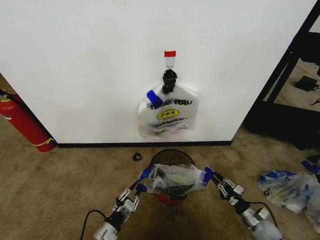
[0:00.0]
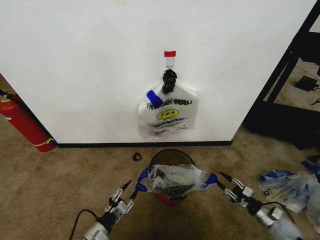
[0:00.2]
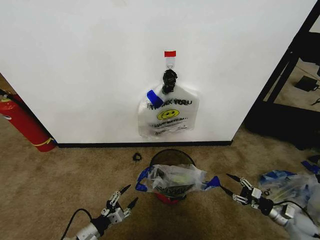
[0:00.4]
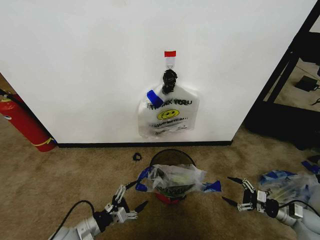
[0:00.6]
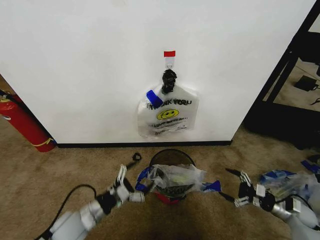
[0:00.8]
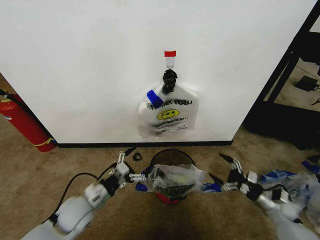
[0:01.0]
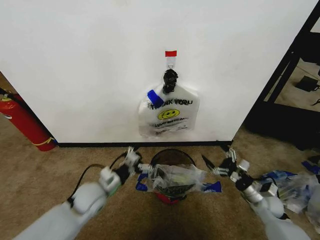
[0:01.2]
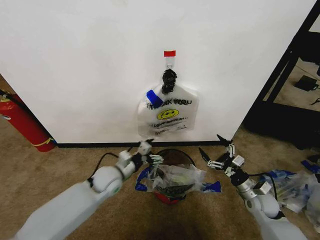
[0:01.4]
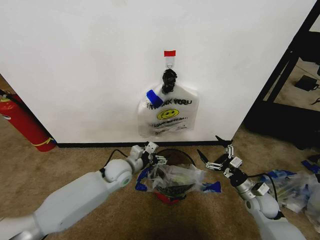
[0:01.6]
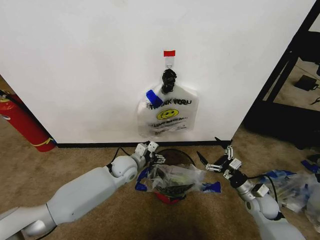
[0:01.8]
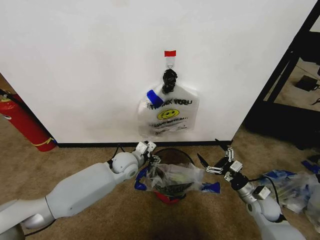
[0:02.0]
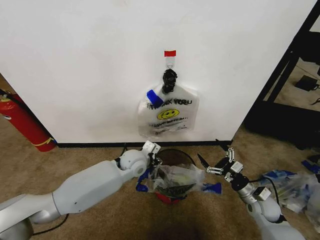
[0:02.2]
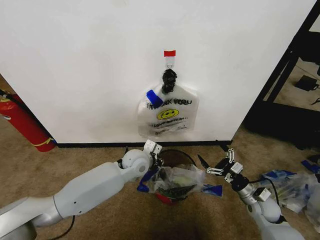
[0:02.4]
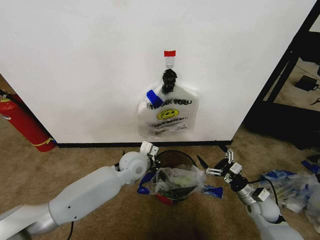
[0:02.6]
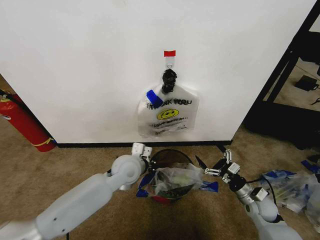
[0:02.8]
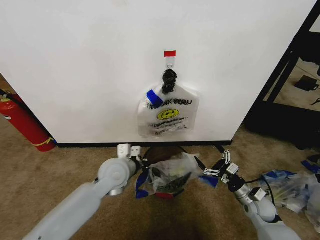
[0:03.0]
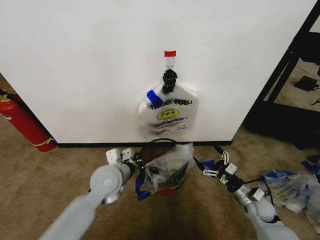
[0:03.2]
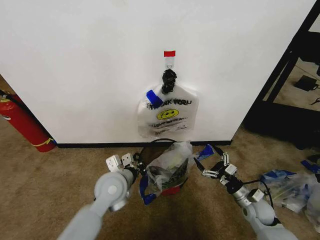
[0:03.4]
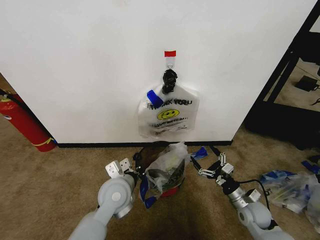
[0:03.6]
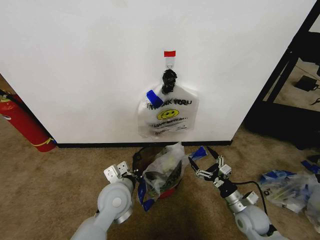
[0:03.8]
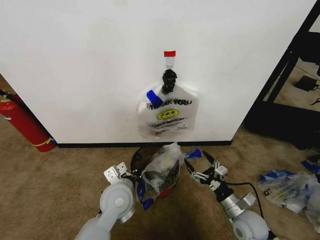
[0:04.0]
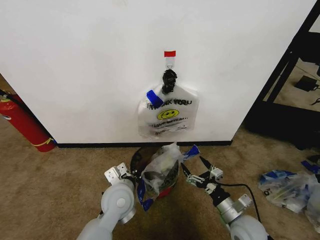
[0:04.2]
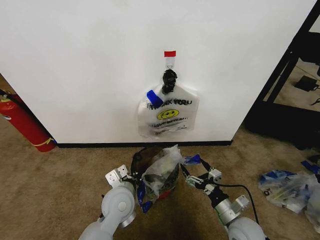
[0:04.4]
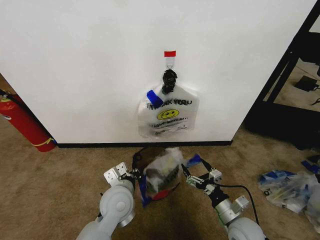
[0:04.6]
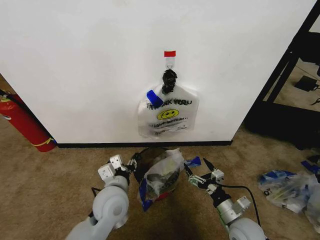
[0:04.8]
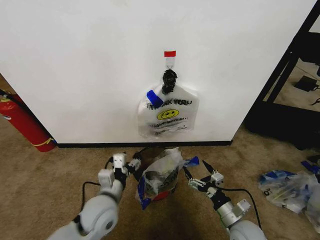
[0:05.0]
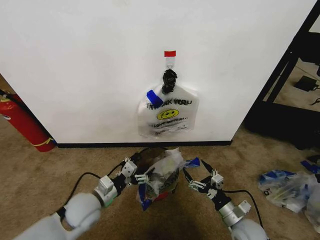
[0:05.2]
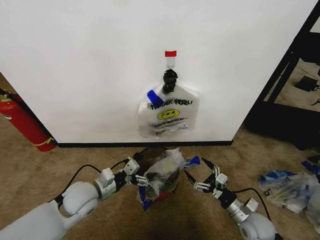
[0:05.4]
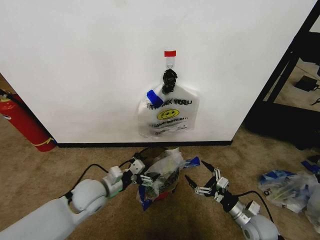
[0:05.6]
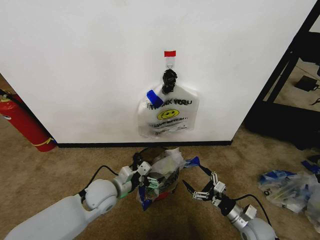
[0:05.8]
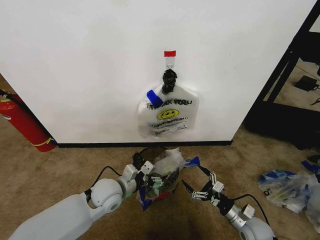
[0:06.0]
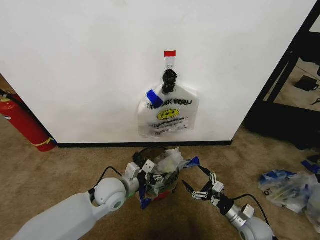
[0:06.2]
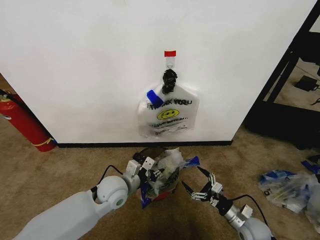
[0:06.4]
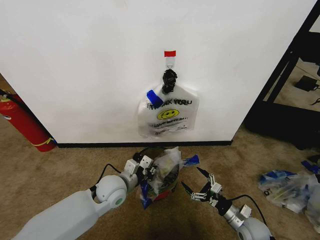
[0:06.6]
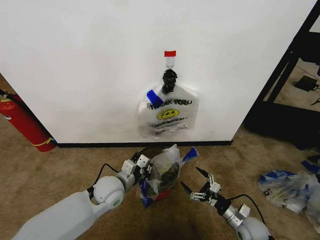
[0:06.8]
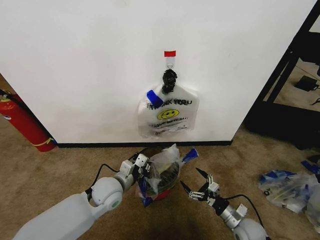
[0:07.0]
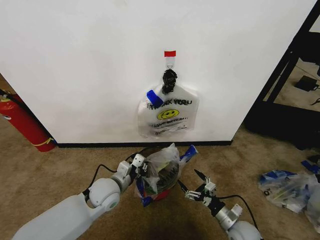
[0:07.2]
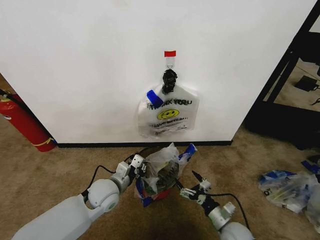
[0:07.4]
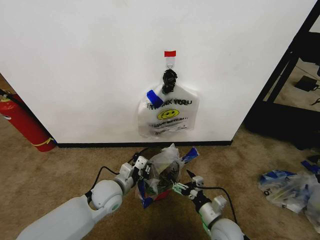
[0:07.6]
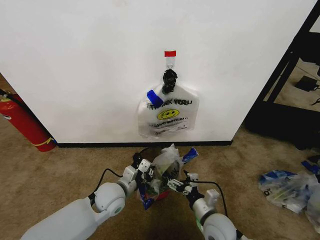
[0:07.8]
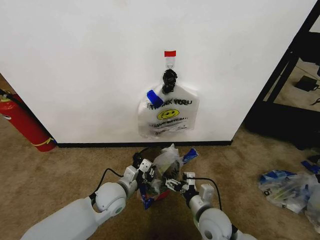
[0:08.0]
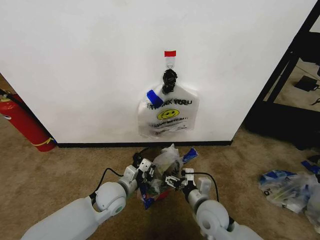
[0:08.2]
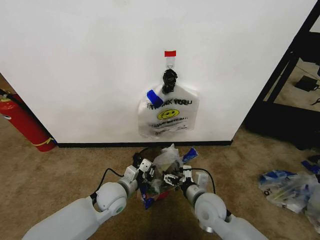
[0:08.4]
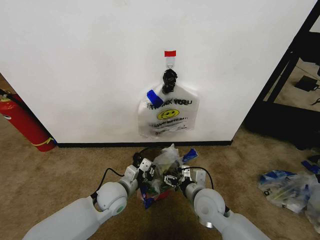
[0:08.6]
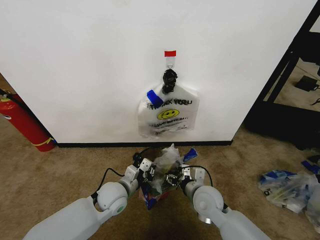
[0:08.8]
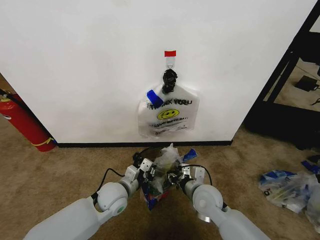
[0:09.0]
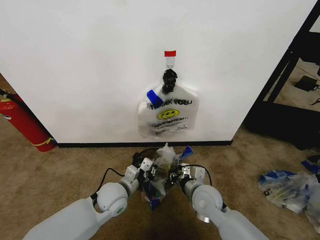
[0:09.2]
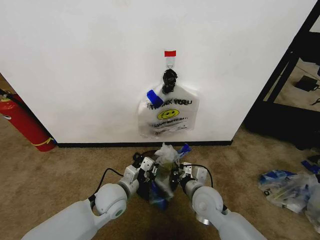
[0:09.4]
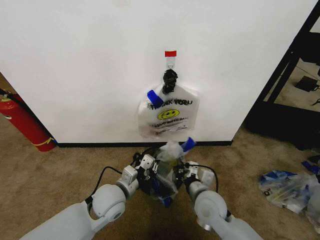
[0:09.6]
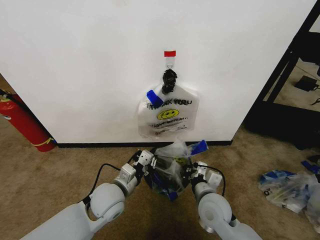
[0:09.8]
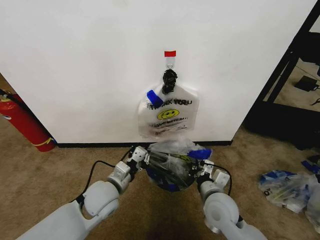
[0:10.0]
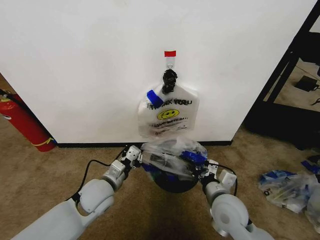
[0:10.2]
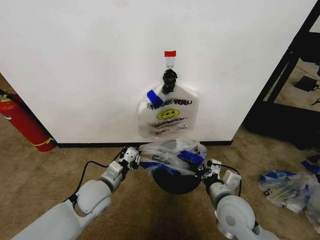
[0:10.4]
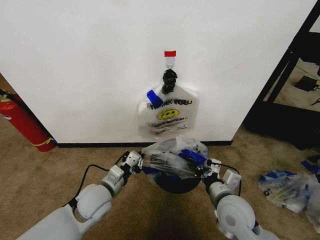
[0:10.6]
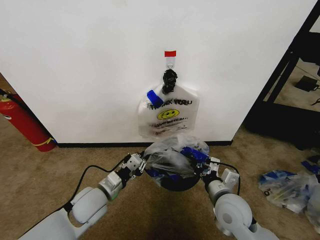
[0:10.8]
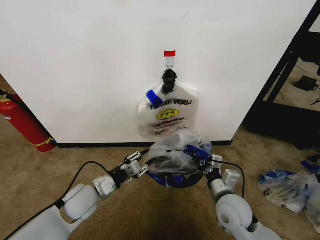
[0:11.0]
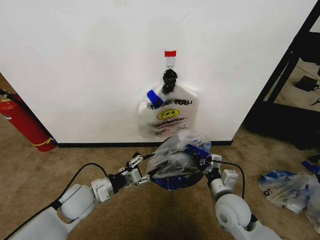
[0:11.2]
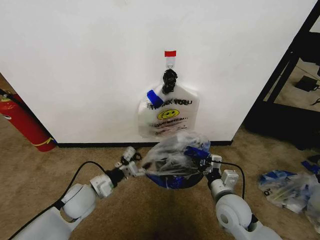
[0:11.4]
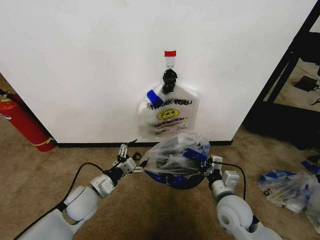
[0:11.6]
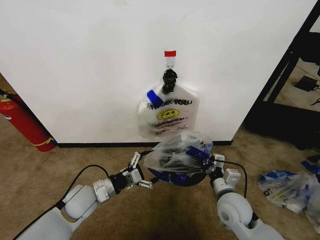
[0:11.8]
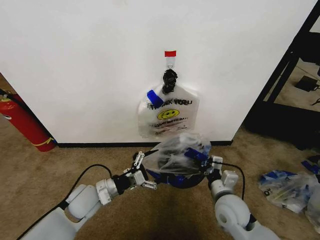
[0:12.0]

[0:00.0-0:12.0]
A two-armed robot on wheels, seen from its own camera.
Task of the whole recording: Pick up the garbage bag from the wall and place it over the trash bin.
0:00.0 to 0:01.6: The right gripper goes roughly 15 cm upward and to the left, and opens its fingers. Meanwhile the left gripper shifts some 25 cm forward and upward, and opens.
0:01.6 to 0:03.0: The left gripper goes about 10 cm upward, and closes up.
0:03.0 to 0:04.4: The left gripper moves backward, about 10 cm. Meanwhile the right gripper heads to the left and backward, covering some 15 cm.
0:04.4 to 0:06.0: The right gripper goes some 10 cm to the right and downward. The left gripper opens its fingers.
0:06.0 to 0:07.6: The left gripper closes. Meanwhile the right gripper goes about 10 cm to the left.
0:07.6 to 0:09.0: The right gripper travels forward, upward and to the left by about 15 cm, and closes up.
0:09.0 to 0:10.4: The right gripper moves backward and upward, approximately 10 cm, and closes its fingers. Meanwhile the left gripper ends up some 5 cm from where it was.
0:10.4 to 0:12.0: The right gripper shifts by approximately 5 cm. Meanwhile the left gripper opens its fingers.

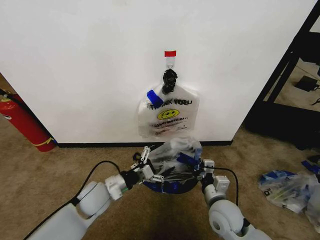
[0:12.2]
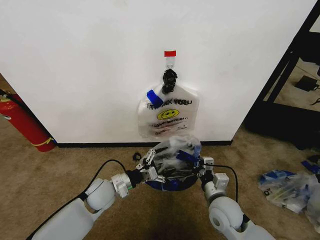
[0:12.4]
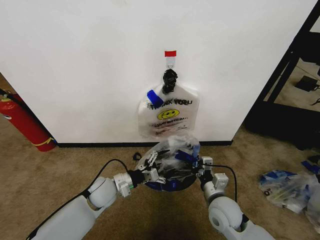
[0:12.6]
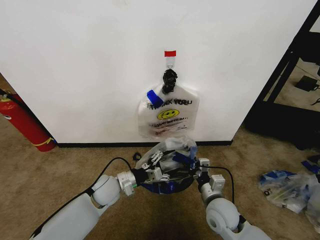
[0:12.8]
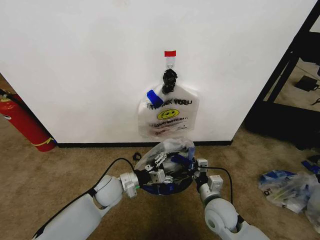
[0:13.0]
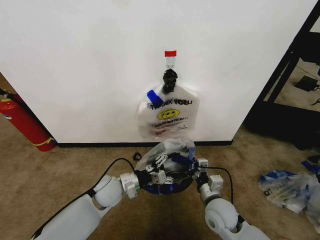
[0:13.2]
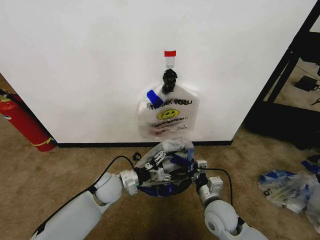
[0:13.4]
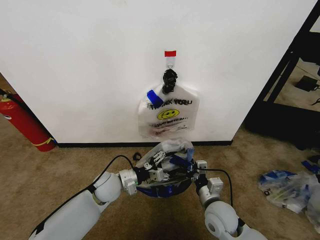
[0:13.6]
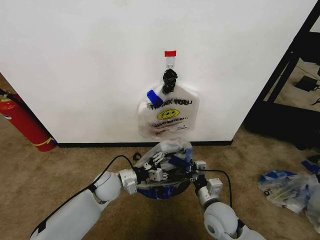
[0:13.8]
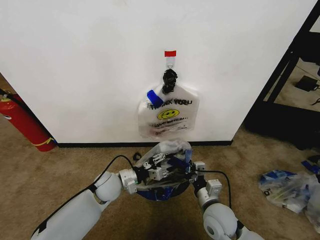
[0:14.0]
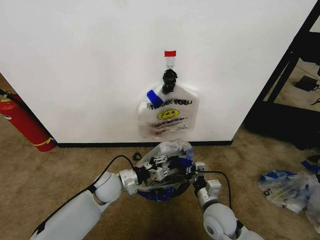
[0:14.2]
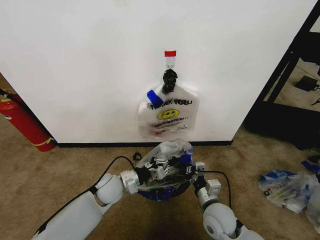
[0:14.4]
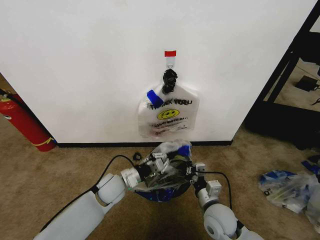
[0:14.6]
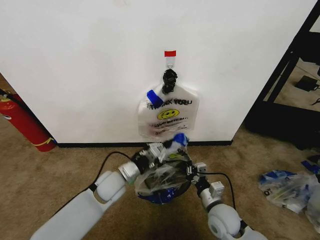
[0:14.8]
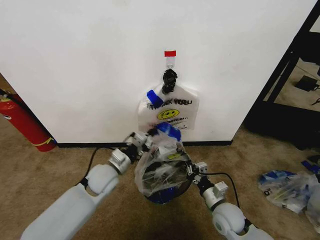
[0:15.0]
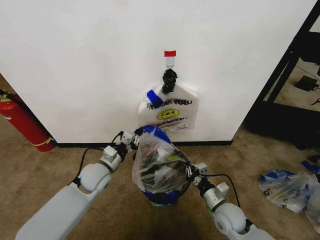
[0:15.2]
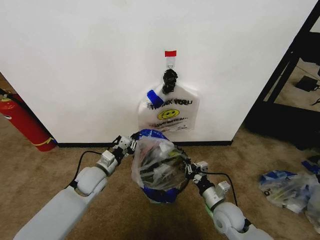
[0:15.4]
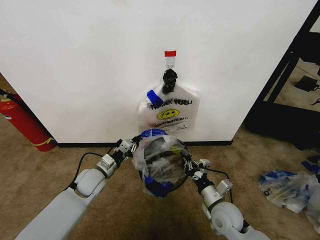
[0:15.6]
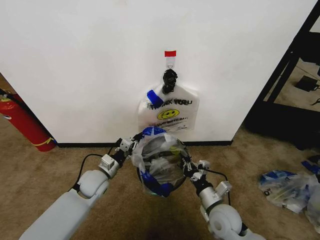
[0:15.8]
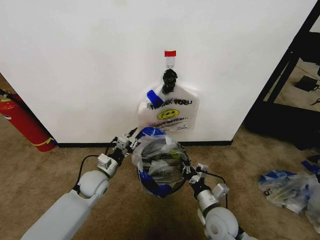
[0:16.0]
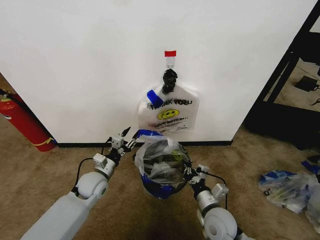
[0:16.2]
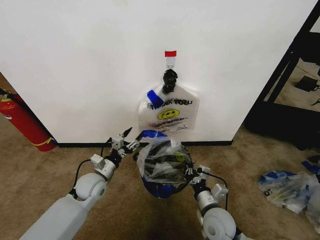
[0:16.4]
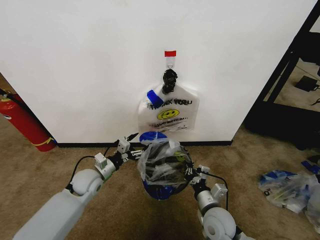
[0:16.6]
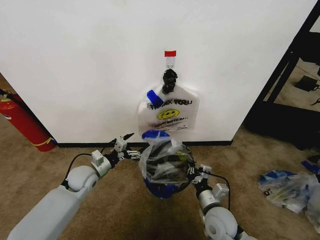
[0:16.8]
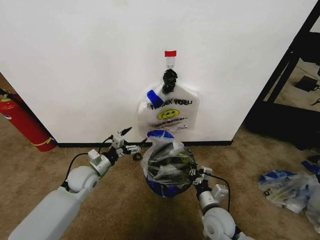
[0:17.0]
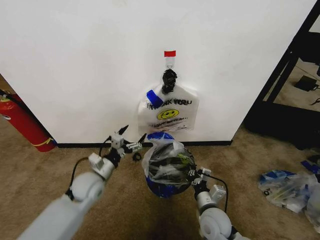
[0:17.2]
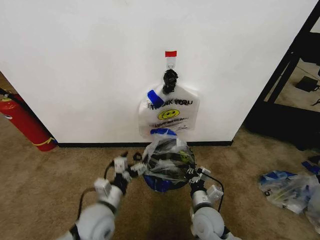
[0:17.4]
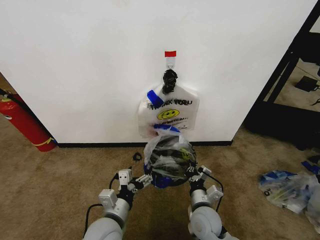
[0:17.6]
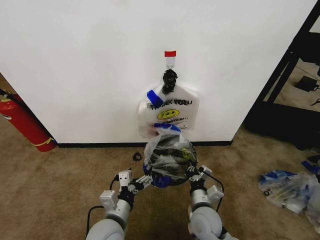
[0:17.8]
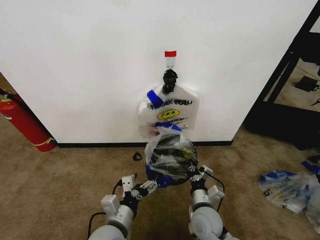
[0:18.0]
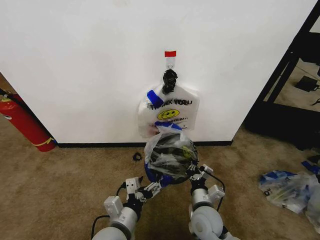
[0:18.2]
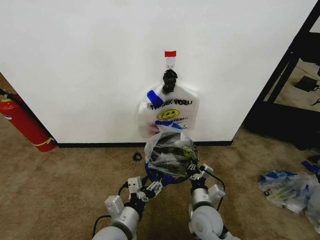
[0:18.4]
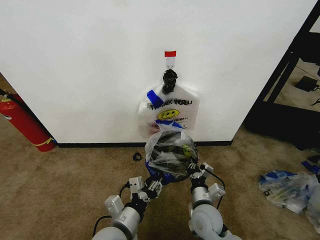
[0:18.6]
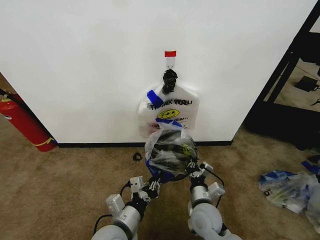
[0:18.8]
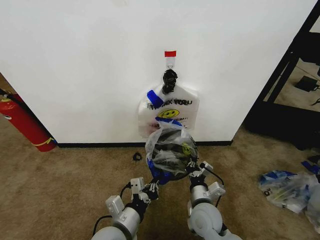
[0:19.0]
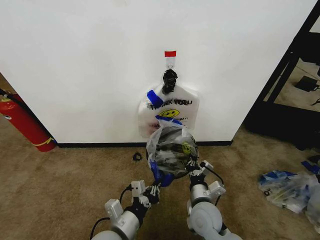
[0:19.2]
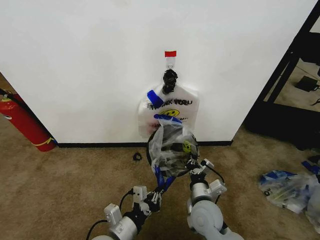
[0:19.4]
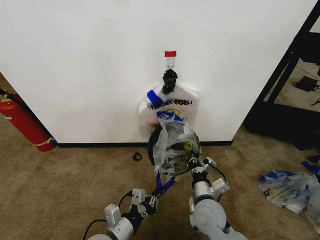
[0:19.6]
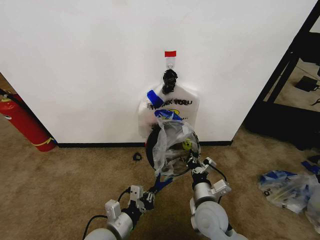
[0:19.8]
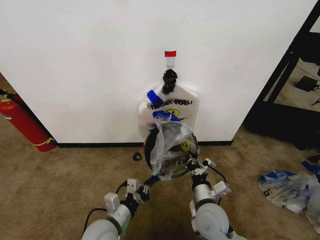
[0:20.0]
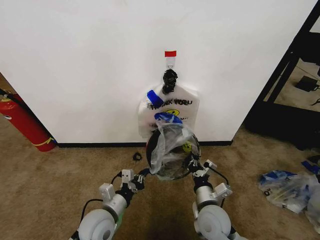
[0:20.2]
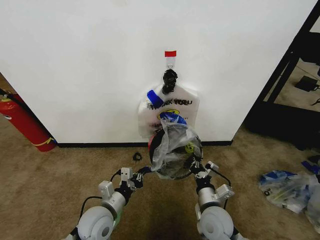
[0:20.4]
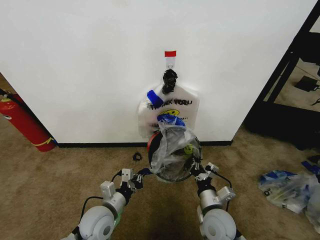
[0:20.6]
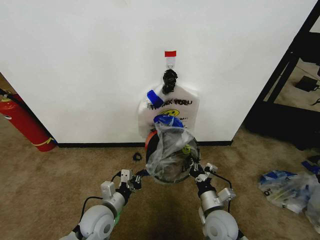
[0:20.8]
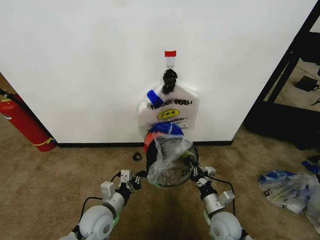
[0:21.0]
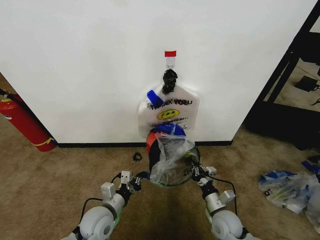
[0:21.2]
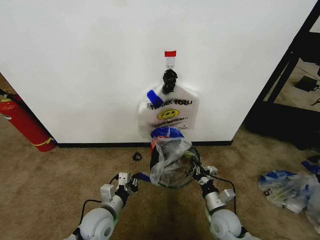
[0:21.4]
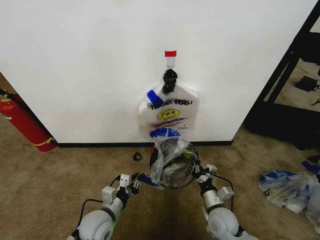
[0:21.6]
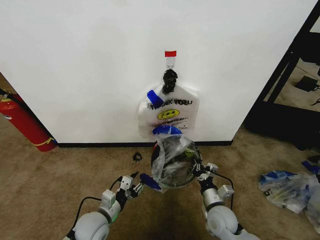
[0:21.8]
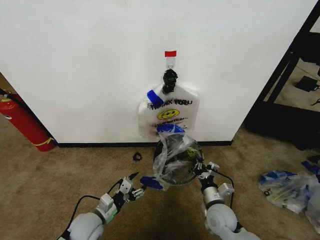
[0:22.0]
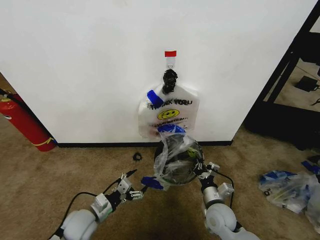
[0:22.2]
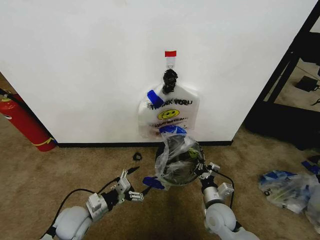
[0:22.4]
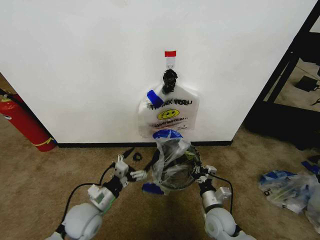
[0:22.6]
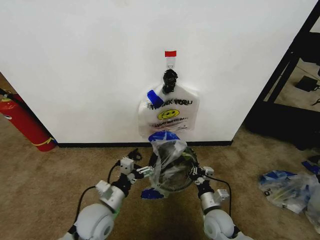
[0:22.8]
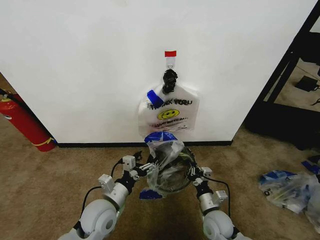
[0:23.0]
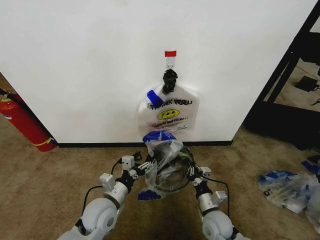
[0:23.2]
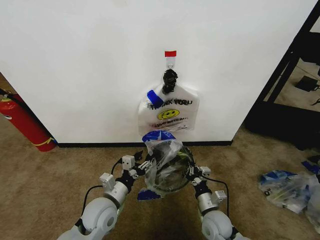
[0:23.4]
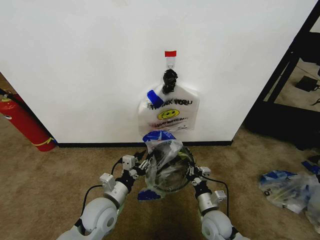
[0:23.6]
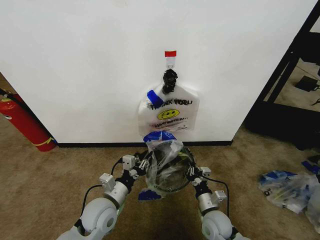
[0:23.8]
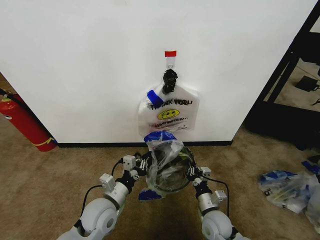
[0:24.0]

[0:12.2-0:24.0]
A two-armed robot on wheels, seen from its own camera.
Task of the whole recording: Pick up the garbage bag from the wall and place it over the trash bin.
0:12.2 to 0:13.6: The left gripper shifts by about 5 cm.
0:13.6 to 0:15.2: The left gripper changes place by about 5 cm, and closes up. Meanwhile the right gripper changes place by approximately 5 cm.
0:15.2 to 0:16.6: The right gripper heads to the left, covering some 5 cm; the left gripper moves approximately 5 cm, and opens.
0:16.6 to 0:18.2: The left gripper heads backward and to the right, covering roughly 25 cm.
0:18.2 to 0:19.6: The left gripper closes.
0:19.6 to 0:21.0: The left gripper heads forward, covering roughly 10 cm; the right gripper is displaced downward and to the right by roughly 10 cm.
0:21.0 to 0:22.6: The left gripper opens.
0:22.6 to 0:24.0: The left gripper goes some 5 cm to the right, and closes its fingers.
